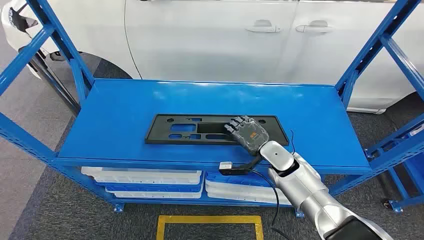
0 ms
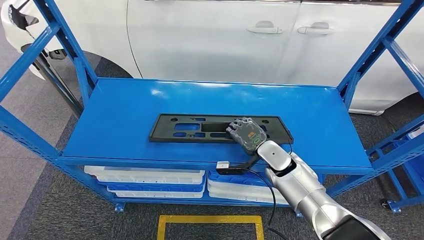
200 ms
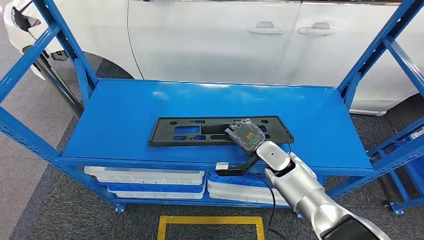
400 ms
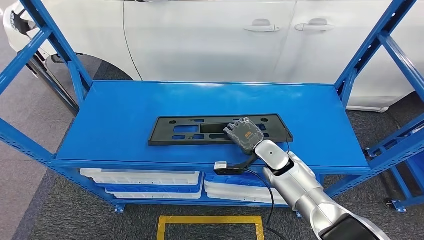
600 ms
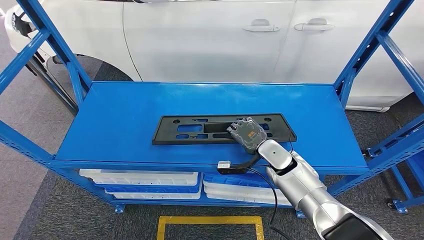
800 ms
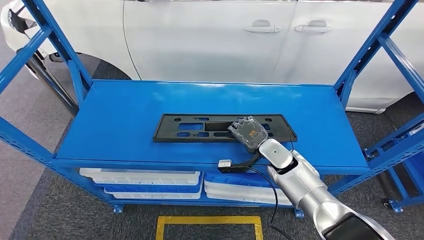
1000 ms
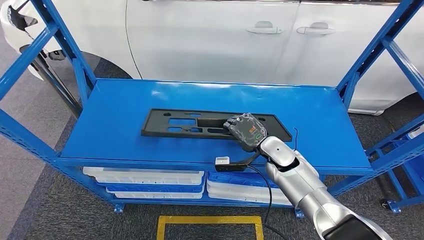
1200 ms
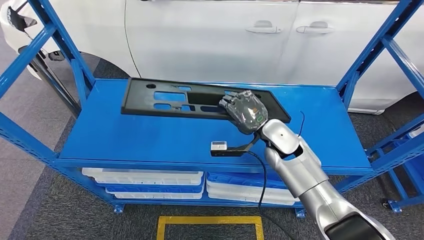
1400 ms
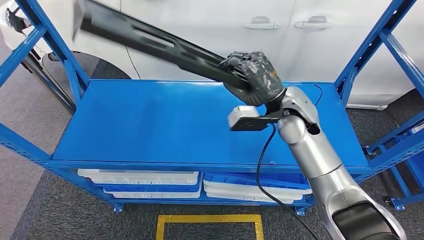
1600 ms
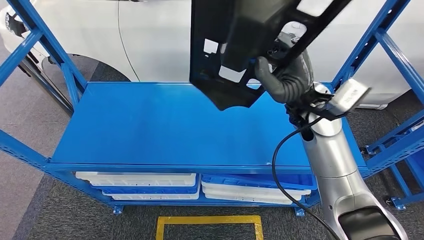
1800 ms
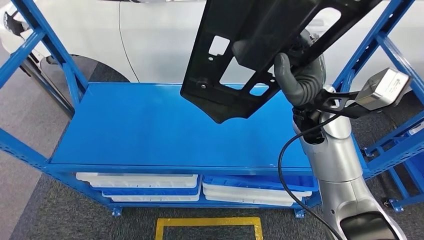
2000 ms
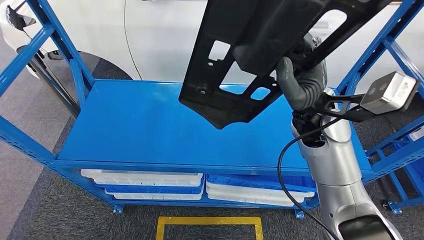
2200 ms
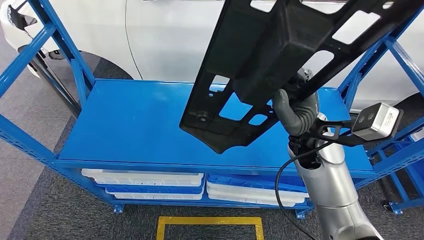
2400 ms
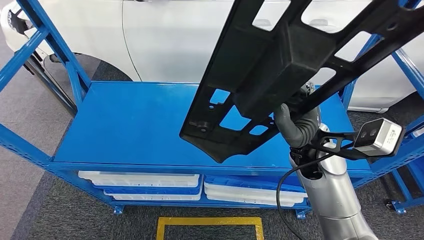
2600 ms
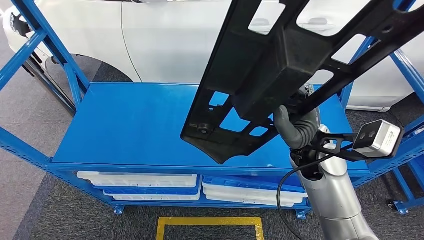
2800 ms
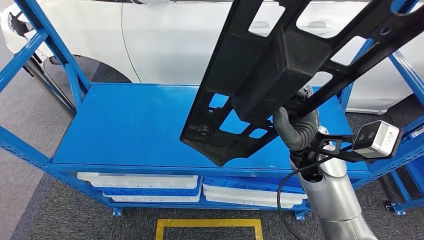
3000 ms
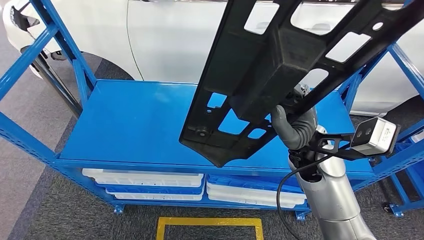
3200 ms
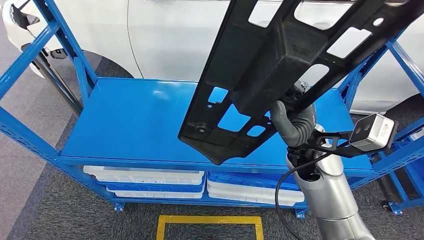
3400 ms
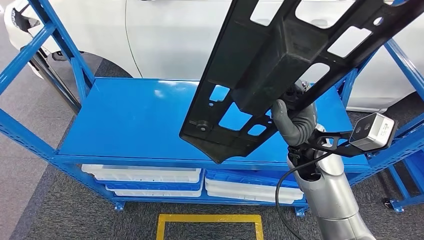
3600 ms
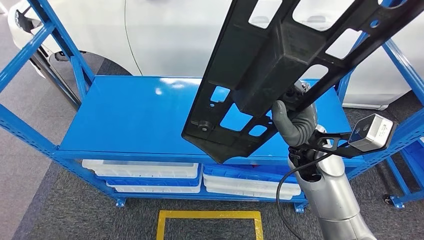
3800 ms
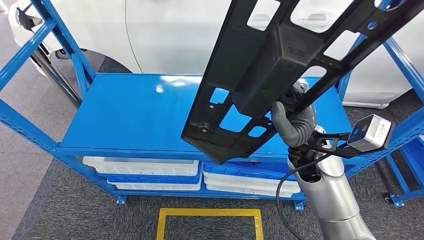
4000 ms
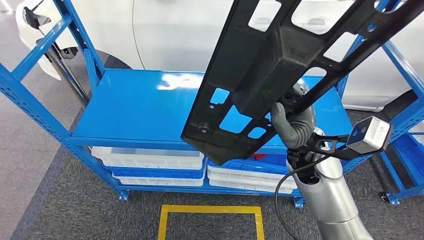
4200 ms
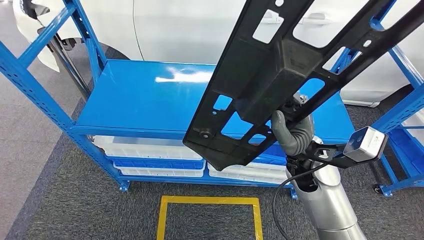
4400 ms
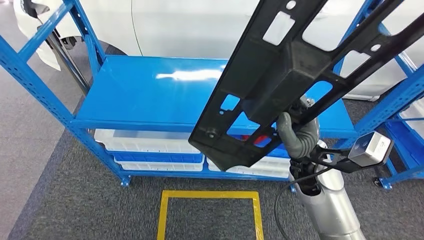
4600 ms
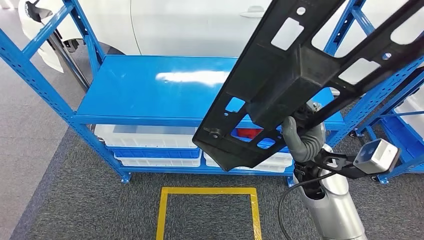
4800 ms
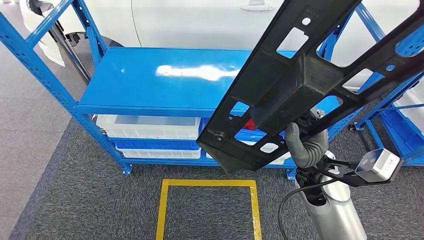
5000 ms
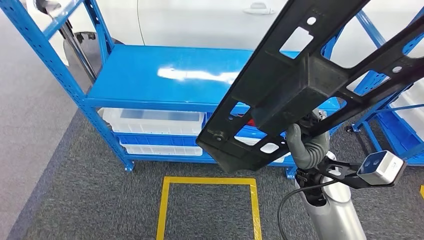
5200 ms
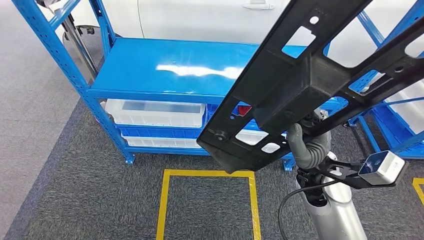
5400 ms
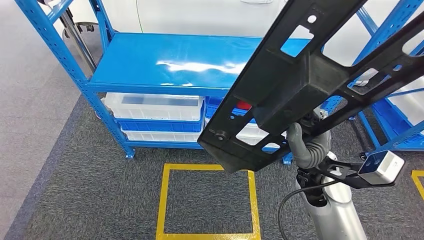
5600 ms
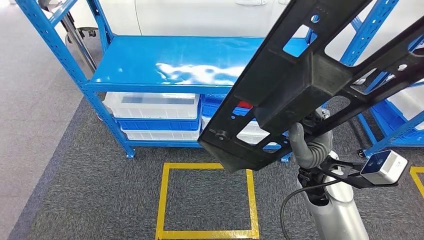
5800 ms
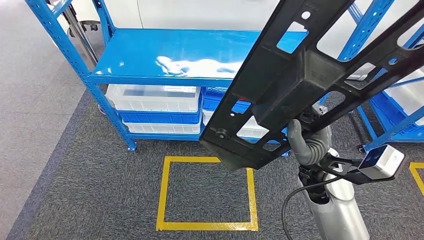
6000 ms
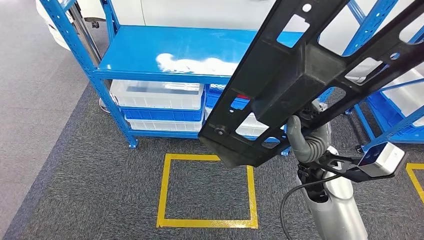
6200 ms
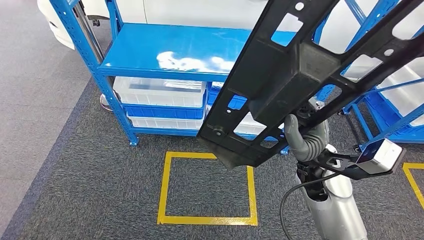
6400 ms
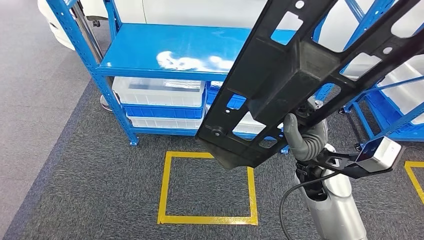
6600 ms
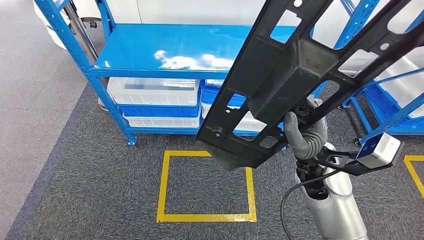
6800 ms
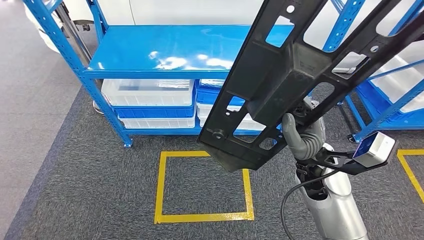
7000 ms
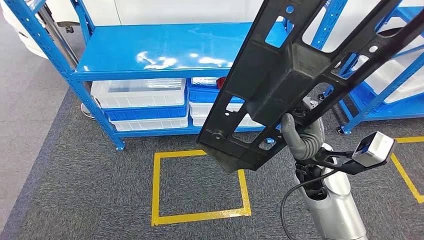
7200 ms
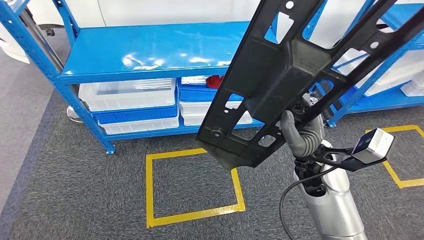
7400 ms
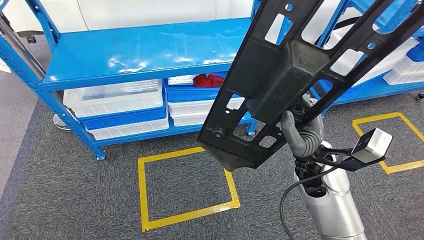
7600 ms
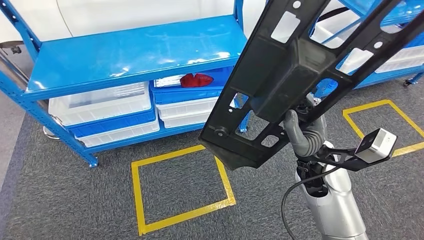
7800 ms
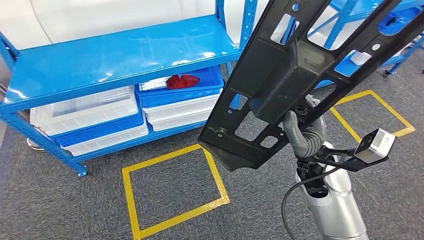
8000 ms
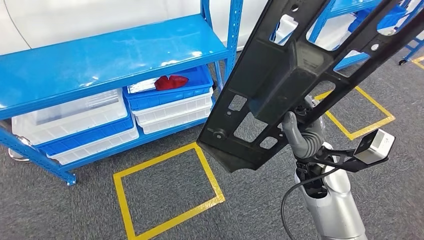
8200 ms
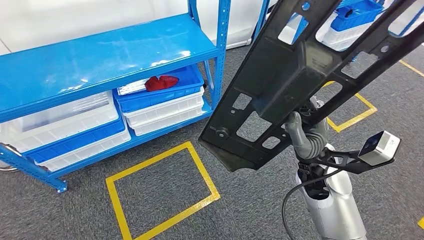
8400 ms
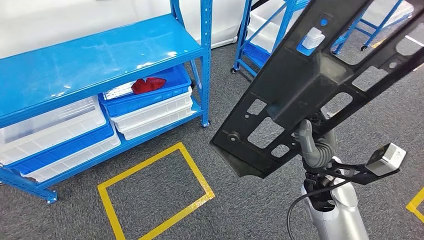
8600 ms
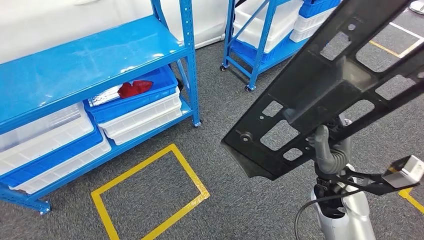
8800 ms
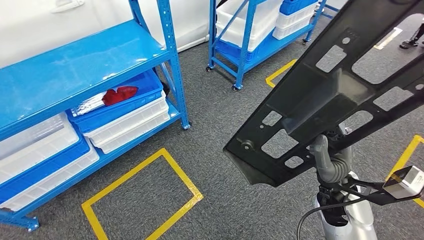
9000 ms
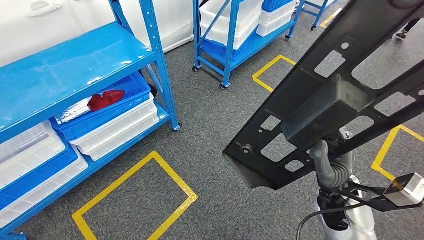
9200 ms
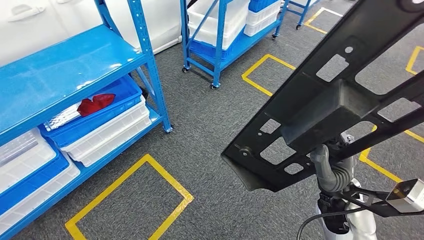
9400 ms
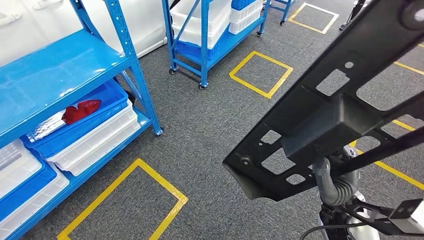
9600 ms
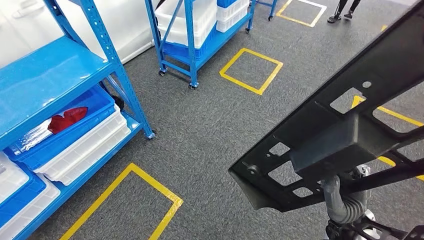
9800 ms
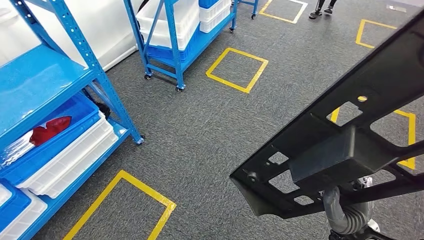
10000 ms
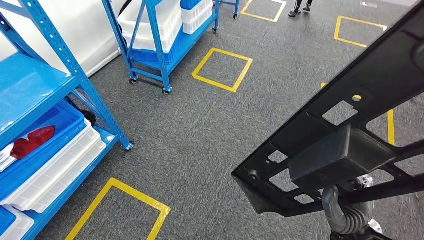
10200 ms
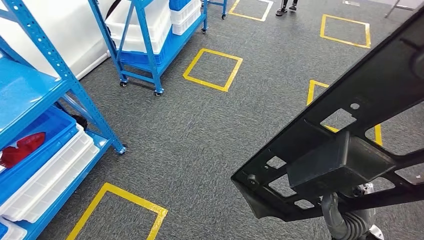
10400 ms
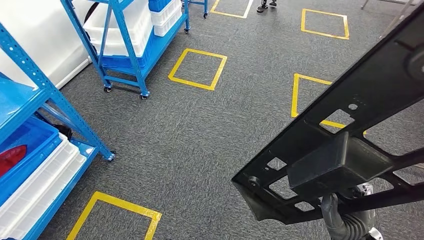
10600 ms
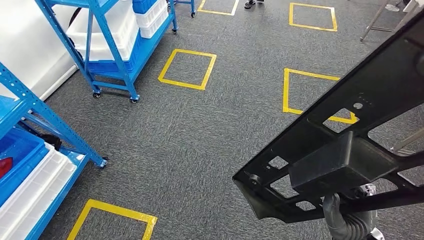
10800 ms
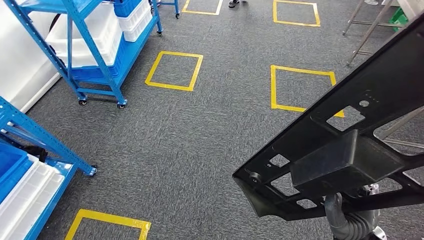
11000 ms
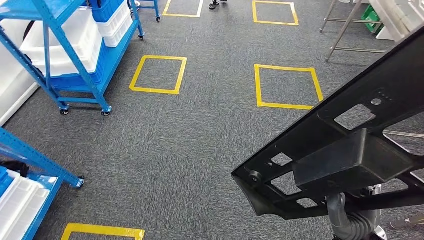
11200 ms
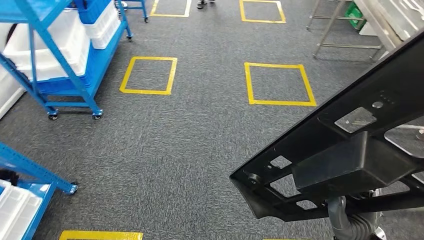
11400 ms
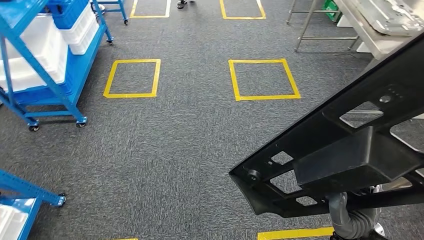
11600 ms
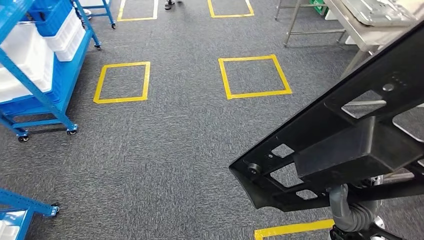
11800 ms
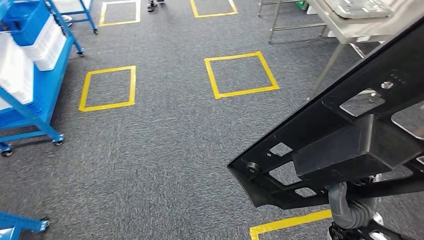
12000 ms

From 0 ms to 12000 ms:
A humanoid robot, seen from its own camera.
Step, from 0 ms to 4600 ms: Pick up the large material from the shelf.

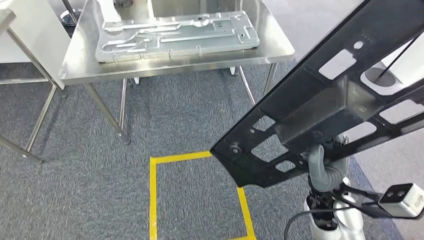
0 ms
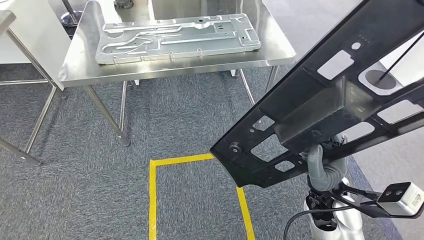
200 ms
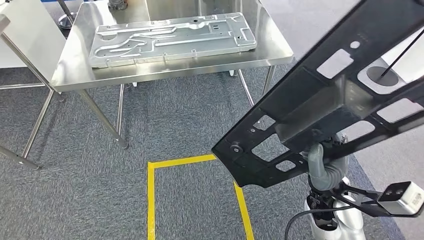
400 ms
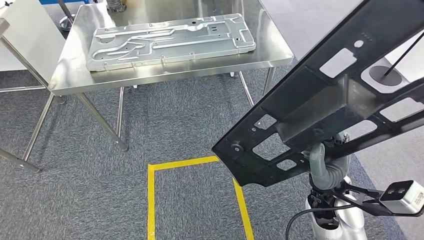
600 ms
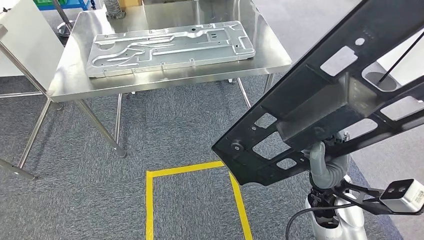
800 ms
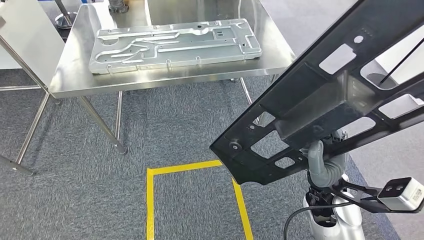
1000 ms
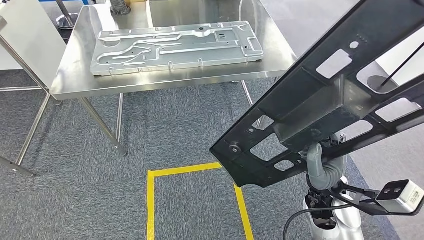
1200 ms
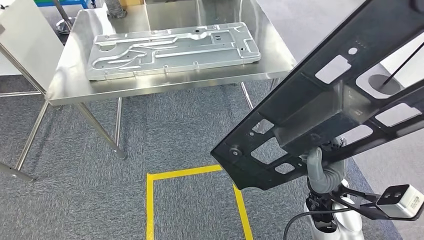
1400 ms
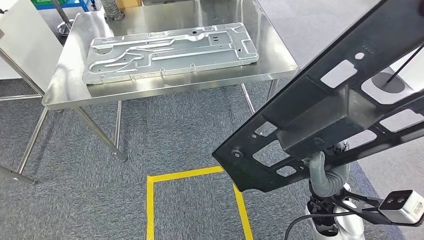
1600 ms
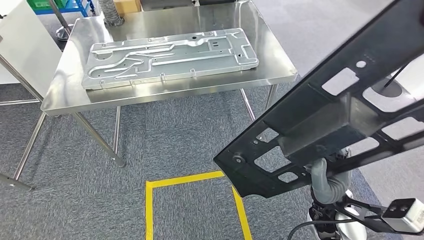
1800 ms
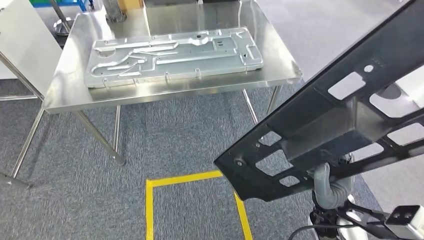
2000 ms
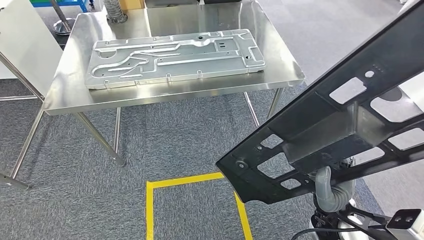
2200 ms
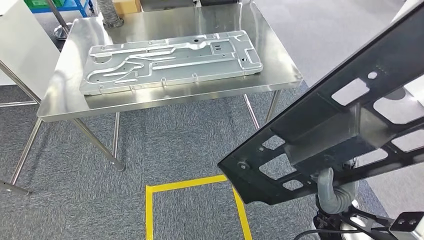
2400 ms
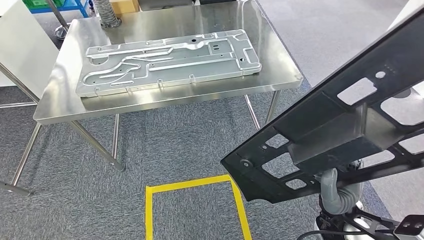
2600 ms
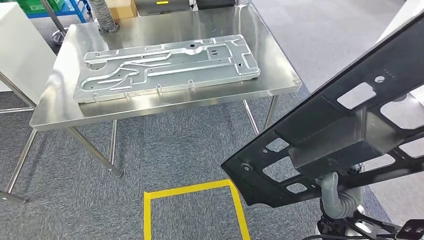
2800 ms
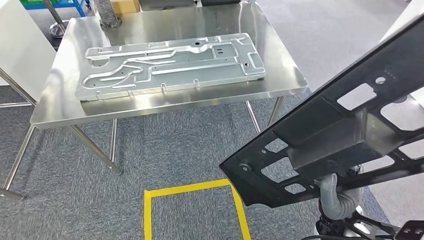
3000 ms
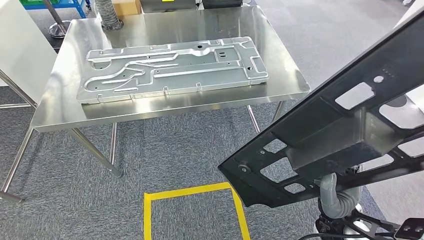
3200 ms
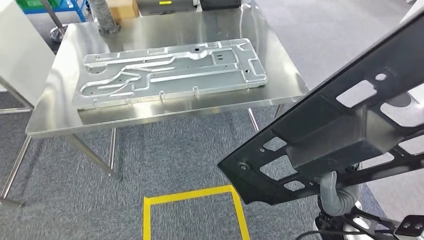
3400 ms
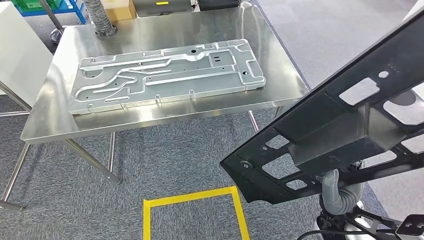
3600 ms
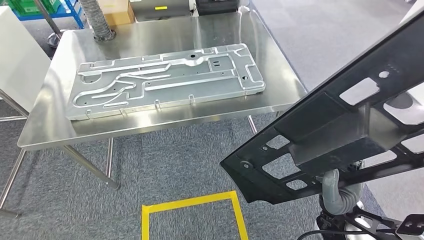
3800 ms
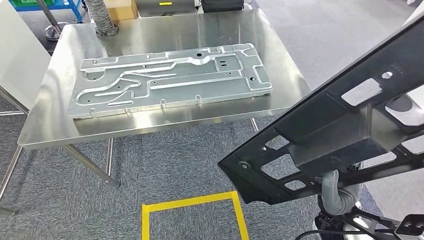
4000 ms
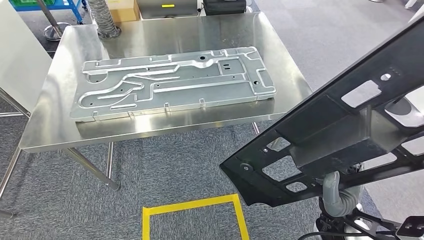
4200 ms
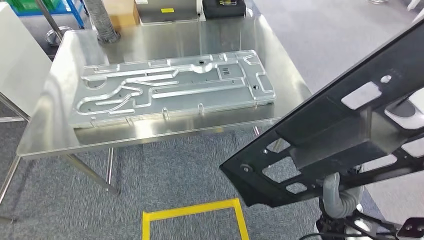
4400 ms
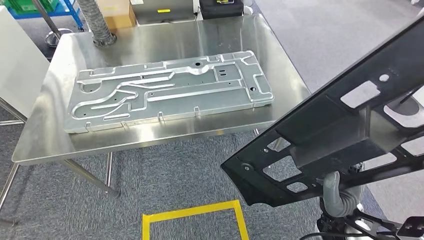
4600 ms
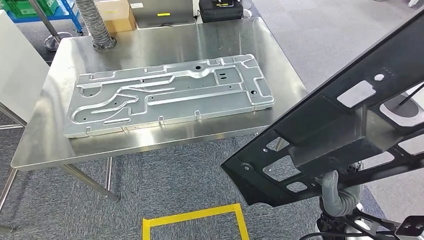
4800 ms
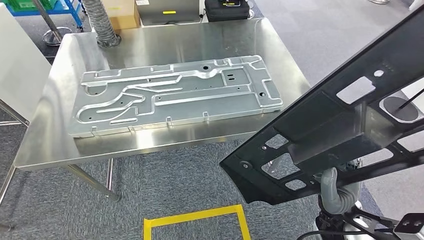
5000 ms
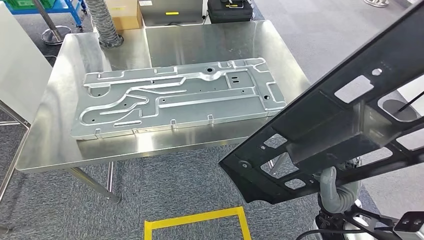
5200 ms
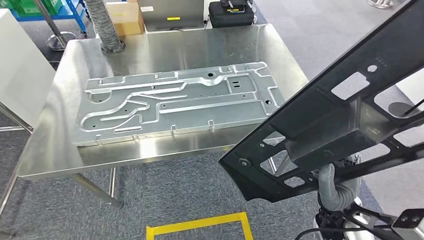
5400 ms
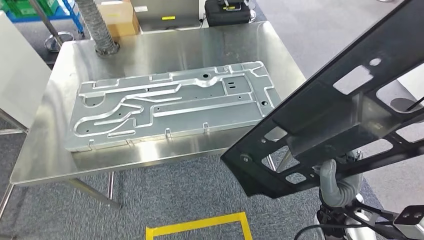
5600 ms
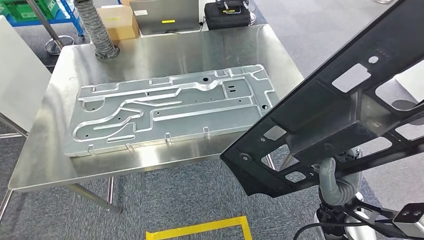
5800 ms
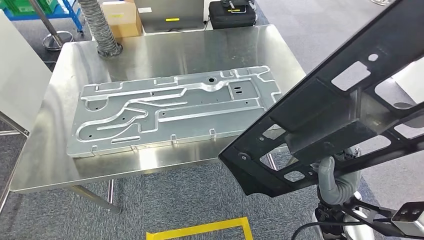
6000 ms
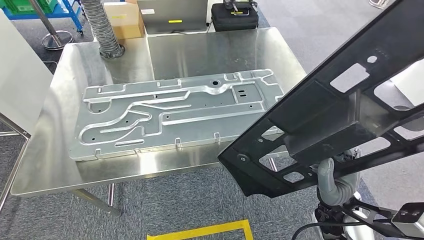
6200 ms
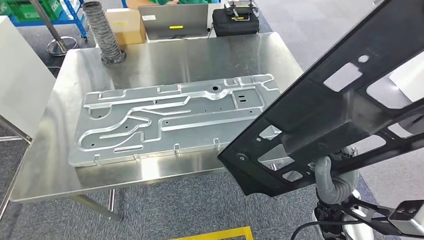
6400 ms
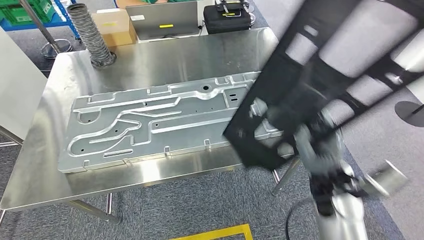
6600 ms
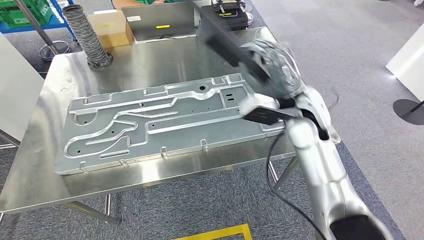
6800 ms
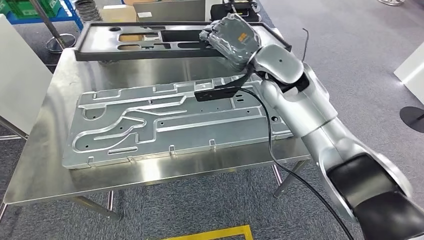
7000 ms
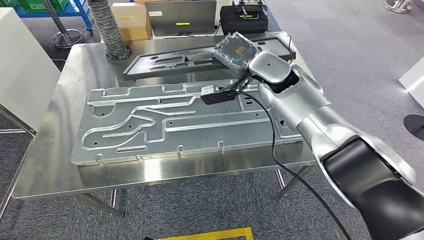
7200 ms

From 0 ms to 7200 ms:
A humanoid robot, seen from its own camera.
Step, from 0 ms to 4600 ms: Move the large material to the front of the workbench.
